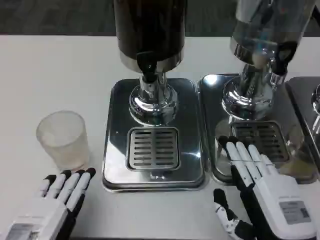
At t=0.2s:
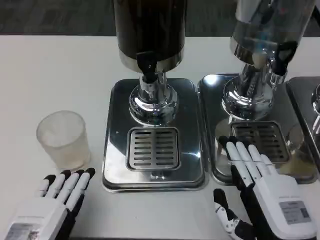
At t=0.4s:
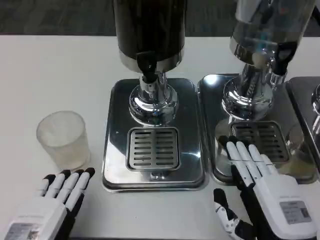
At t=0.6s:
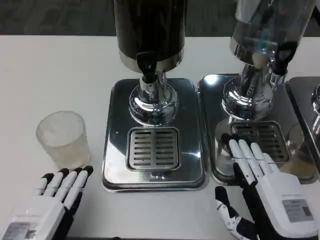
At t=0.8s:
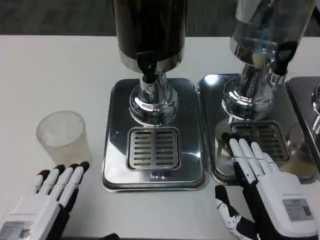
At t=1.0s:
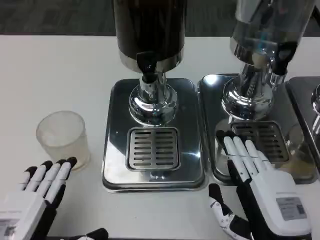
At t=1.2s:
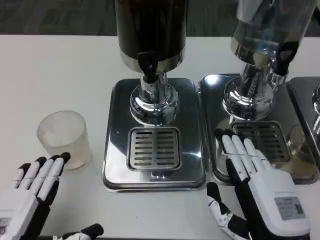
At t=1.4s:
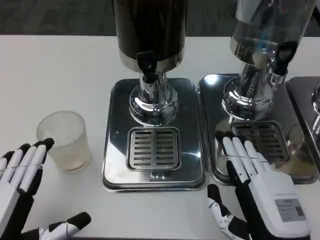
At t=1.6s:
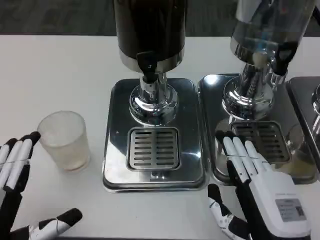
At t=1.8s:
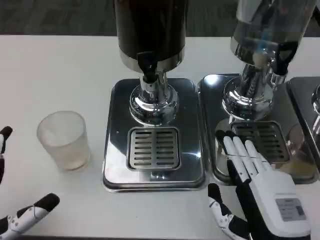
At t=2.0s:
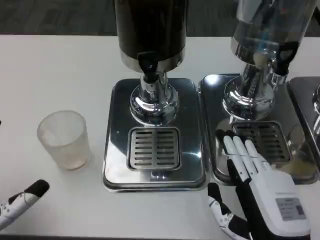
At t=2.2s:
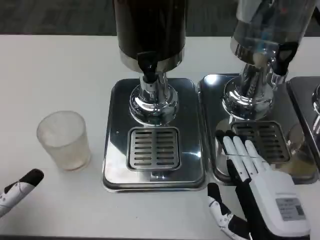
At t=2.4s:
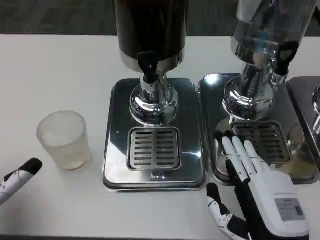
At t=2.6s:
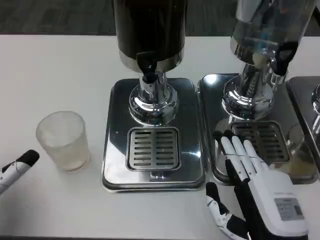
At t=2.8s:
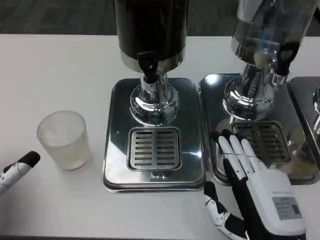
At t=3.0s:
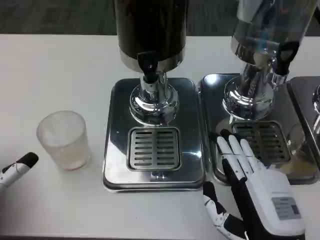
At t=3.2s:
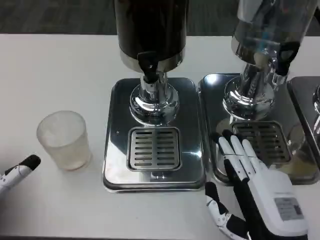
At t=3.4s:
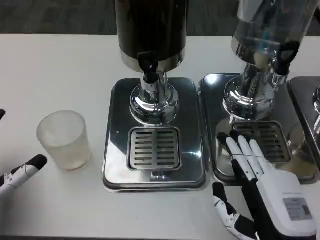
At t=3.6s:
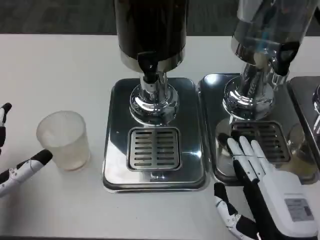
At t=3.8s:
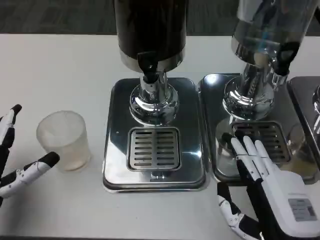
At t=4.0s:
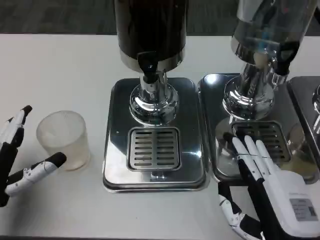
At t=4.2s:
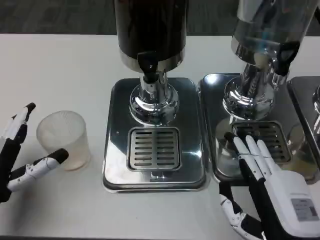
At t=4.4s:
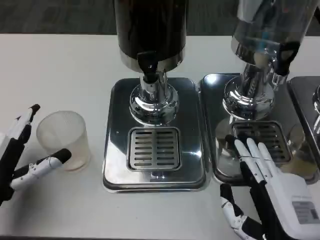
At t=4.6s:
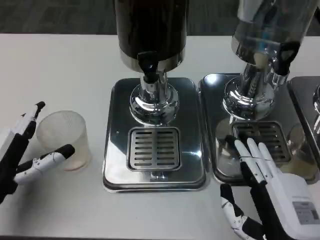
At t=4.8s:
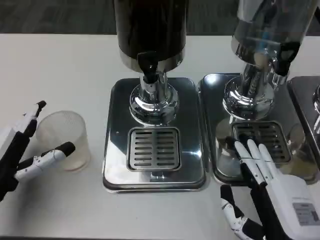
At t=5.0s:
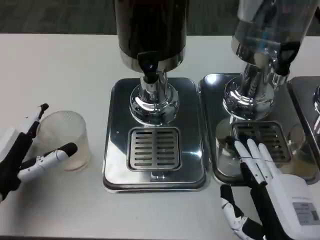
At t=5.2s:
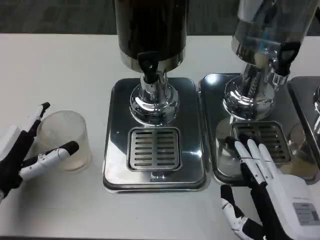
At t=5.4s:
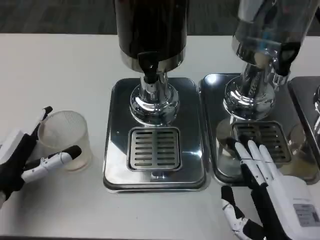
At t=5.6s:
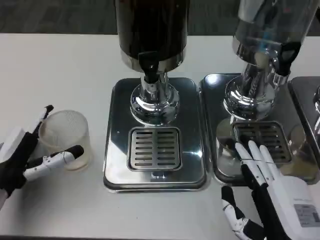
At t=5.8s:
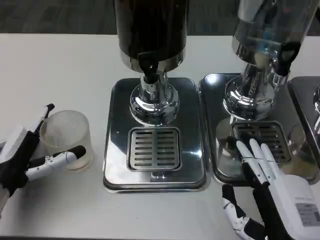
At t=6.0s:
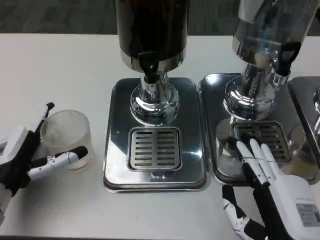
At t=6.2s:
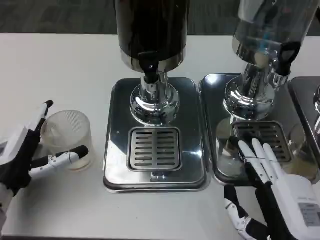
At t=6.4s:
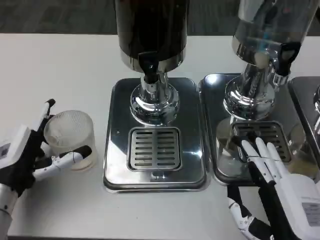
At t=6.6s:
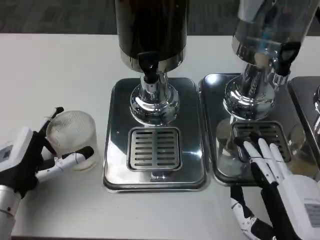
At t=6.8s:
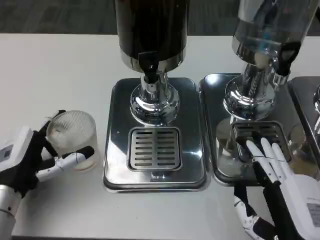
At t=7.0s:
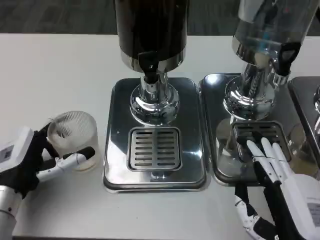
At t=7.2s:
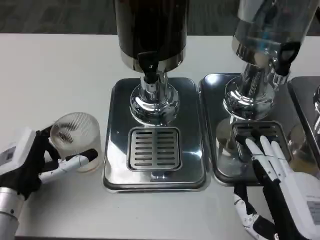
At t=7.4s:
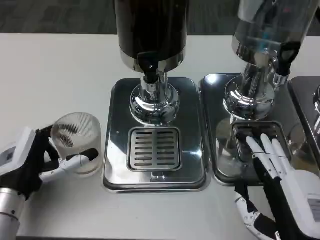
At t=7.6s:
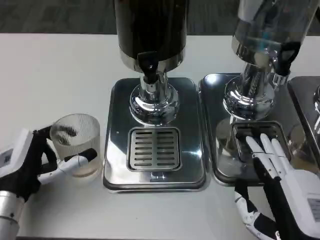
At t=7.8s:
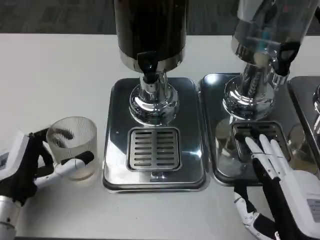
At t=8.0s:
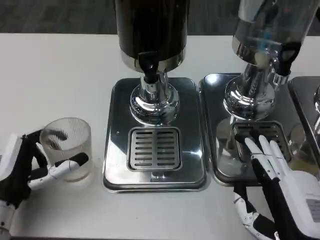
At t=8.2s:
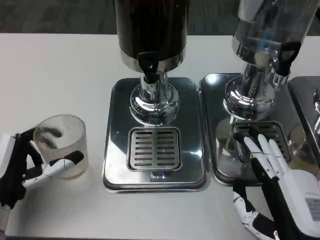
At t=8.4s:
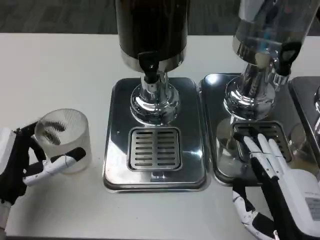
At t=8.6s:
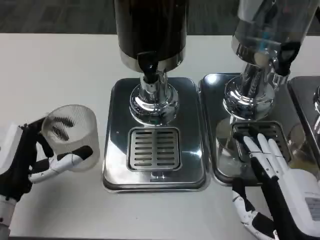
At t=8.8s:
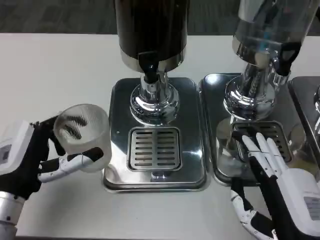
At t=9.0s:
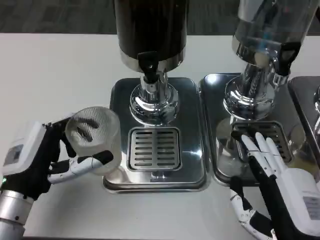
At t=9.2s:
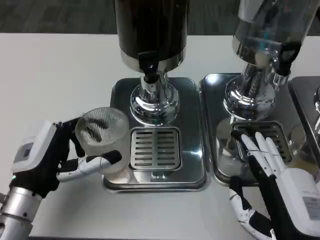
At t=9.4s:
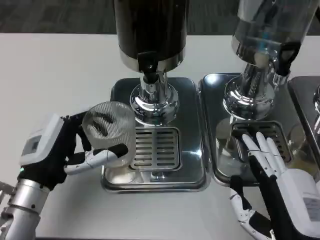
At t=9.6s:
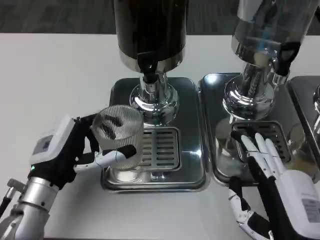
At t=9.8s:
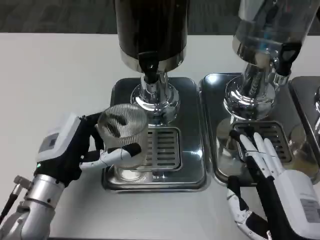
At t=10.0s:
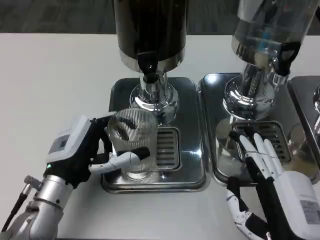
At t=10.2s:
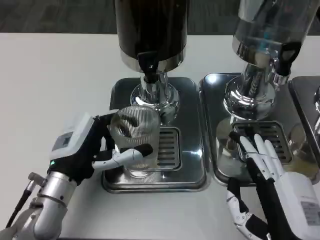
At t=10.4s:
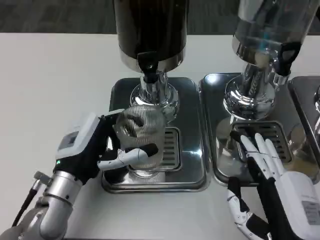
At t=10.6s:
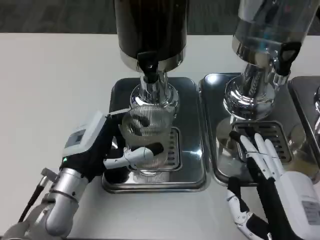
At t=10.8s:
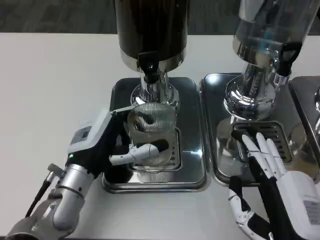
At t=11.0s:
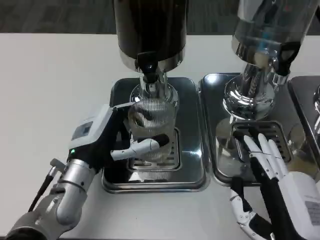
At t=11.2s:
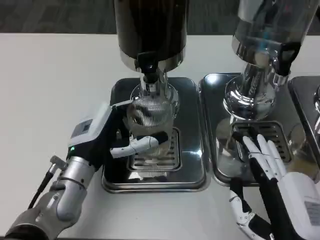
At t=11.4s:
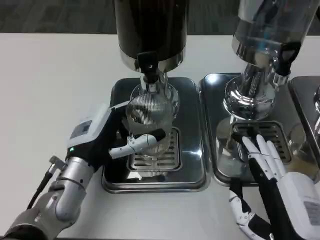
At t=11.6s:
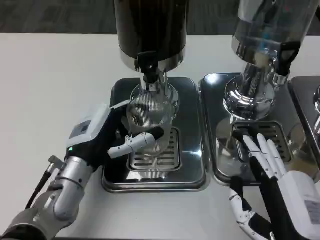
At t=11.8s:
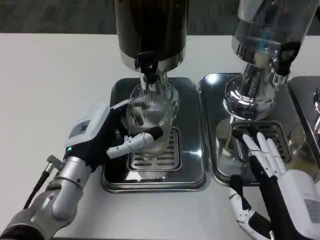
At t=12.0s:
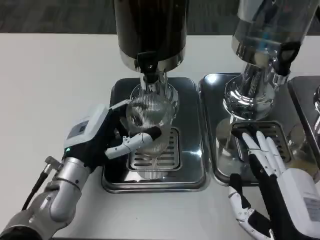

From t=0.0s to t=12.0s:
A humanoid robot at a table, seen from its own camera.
Task of the whole recording: Grasp the cup under the faucet to collect the drink, then remove the cup.
From t=1.6s to t=3.0s: The left hand travels forward and to the left by roughly 10 cm.
From t=3.0s to t=4.4s: There are only small adjustments of the hands.
From t=4.4s to t=9.0s: The hands stay close to where they were, moving slightly.
From t=9.0s to t=10.4s: The left hand moves to the right, some 5 cm.
From t=10.4s to t=12.0s: The hands move only a little.

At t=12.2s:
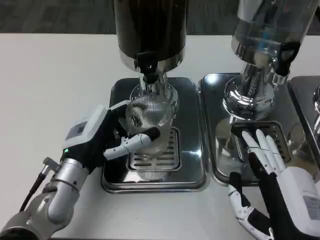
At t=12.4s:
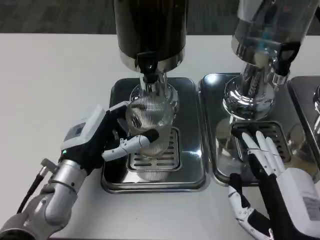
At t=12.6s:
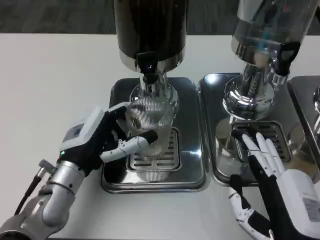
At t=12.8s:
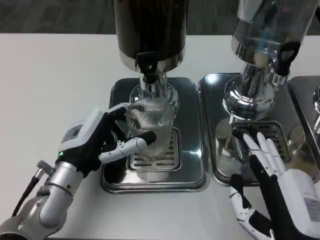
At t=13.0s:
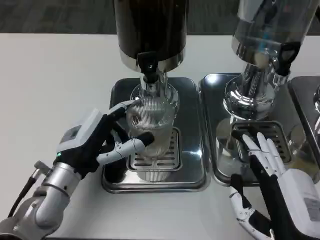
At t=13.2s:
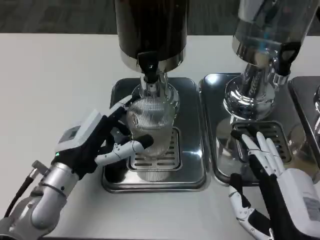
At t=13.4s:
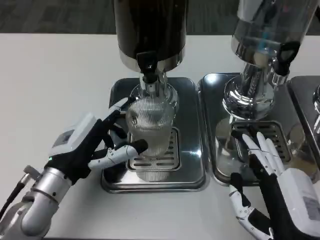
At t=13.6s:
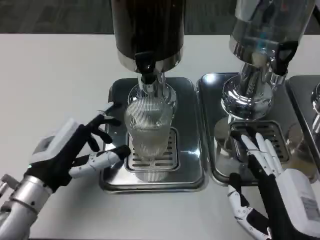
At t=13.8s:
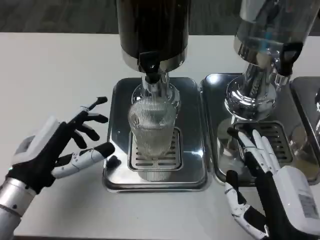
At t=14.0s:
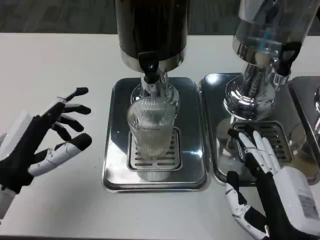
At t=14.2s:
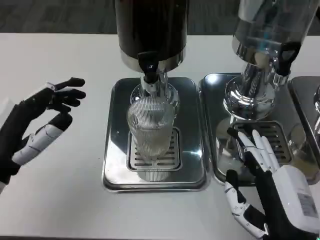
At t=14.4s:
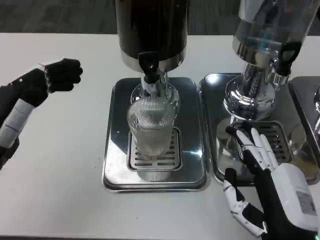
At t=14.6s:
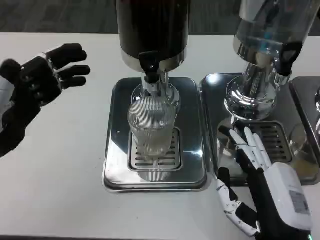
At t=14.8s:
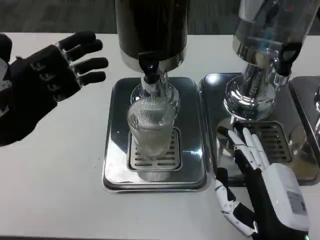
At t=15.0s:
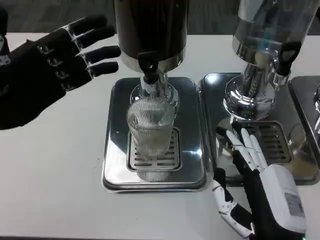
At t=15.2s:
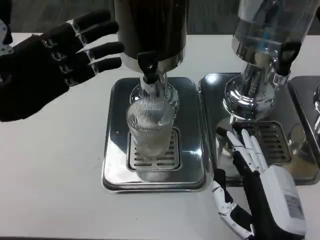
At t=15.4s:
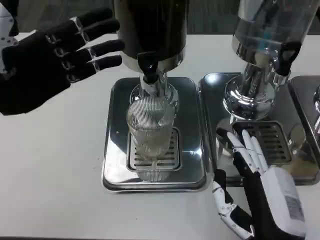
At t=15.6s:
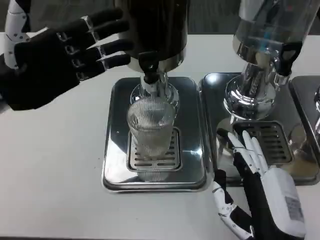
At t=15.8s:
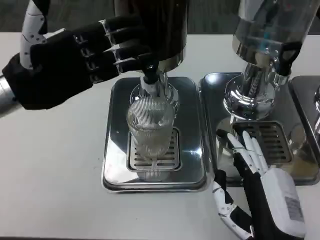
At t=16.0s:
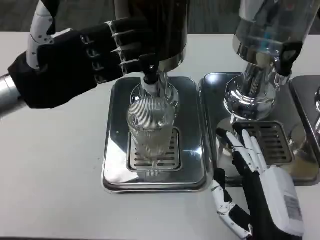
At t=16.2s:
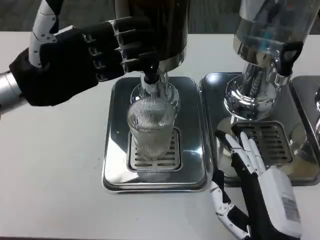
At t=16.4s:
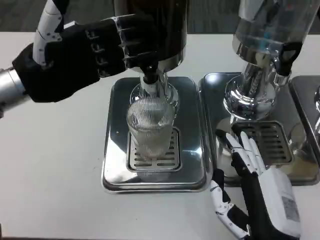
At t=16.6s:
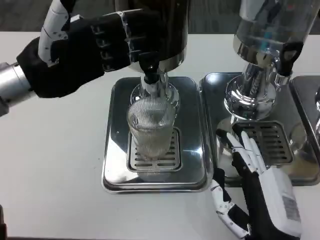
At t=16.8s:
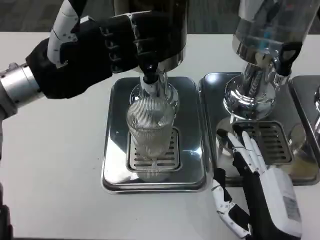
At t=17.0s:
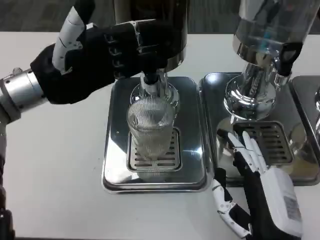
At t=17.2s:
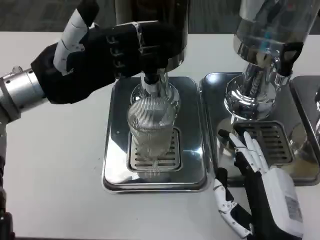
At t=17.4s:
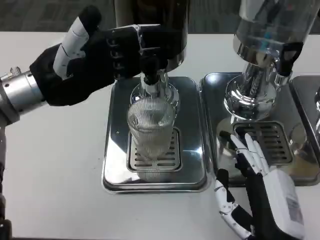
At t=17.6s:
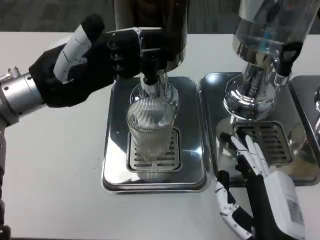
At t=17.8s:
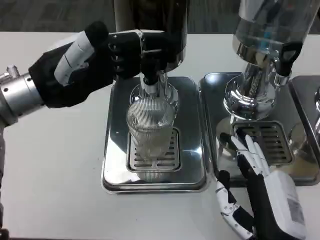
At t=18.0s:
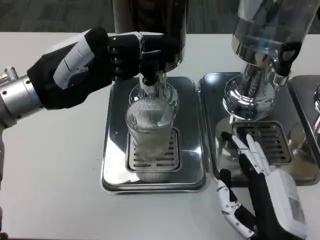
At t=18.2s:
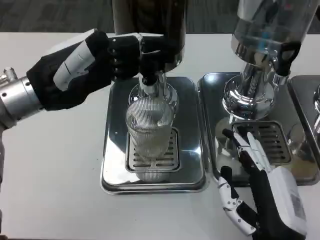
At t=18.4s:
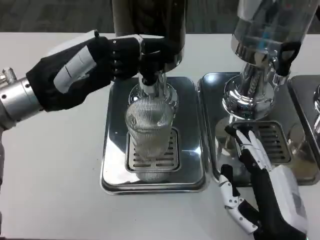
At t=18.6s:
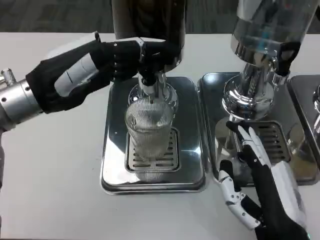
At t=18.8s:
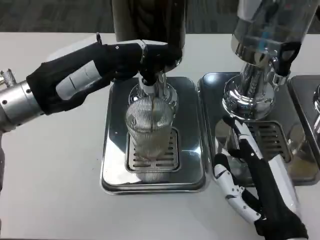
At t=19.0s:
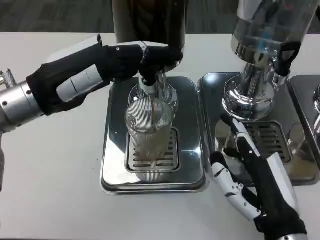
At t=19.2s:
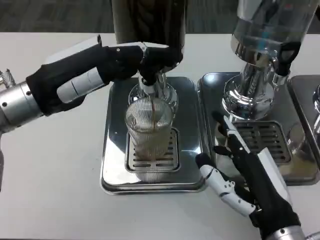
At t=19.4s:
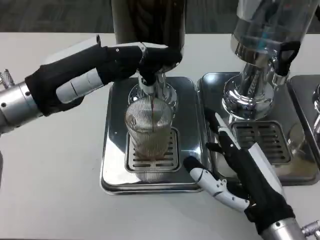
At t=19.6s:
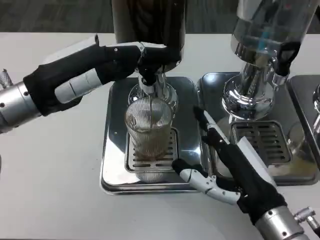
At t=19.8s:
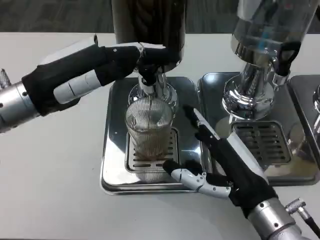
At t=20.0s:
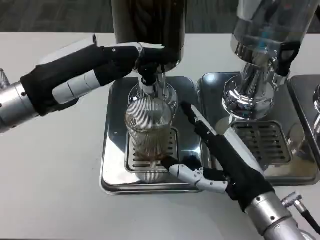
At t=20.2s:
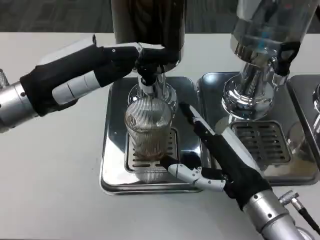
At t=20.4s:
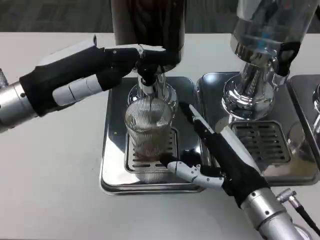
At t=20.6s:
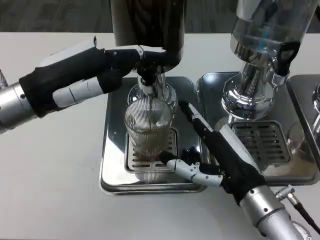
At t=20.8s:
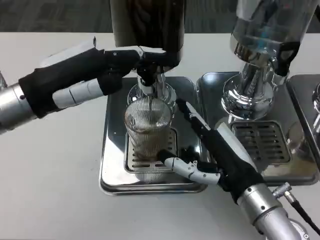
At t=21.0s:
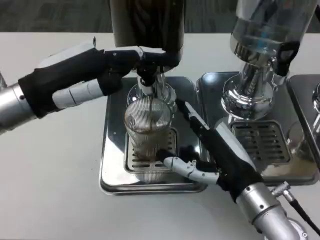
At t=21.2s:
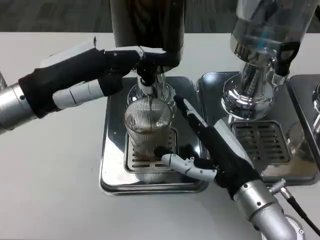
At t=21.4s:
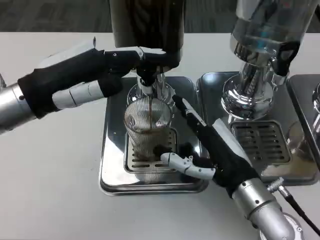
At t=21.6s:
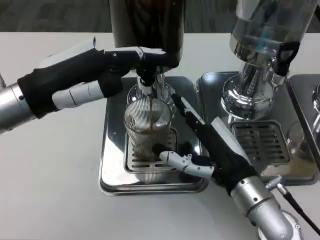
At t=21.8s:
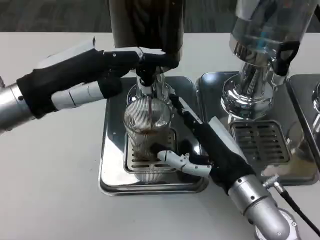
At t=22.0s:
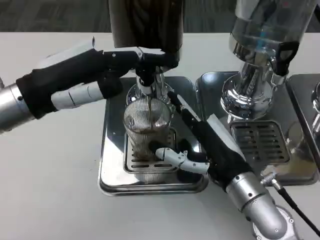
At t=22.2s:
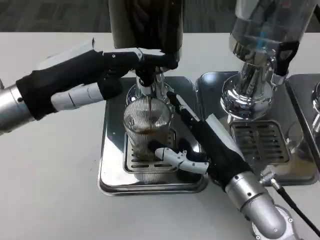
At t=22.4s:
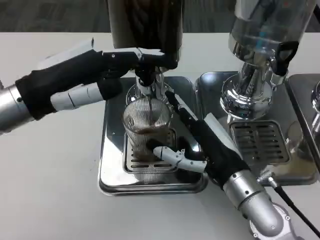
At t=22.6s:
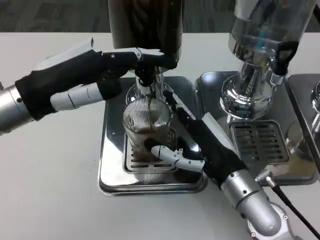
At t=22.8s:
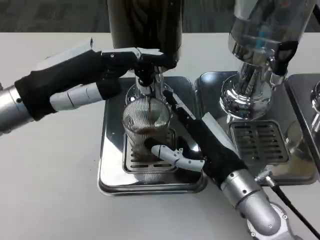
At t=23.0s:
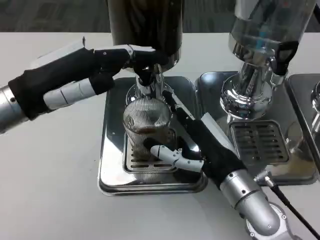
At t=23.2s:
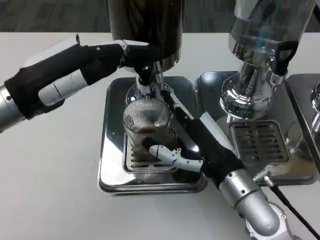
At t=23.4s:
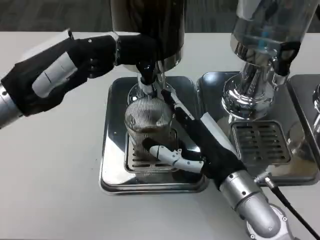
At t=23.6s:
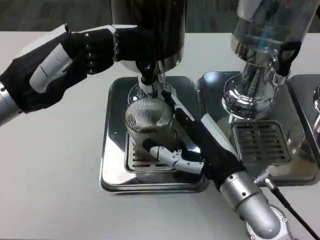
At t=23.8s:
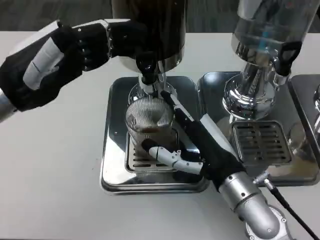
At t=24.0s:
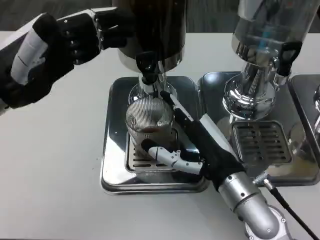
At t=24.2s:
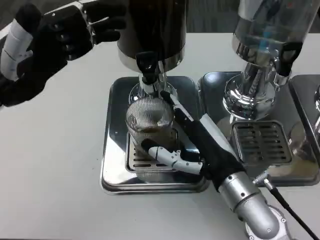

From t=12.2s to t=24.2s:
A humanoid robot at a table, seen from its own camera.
Task of the whole recording: Grasp the cup under the faucet to collect the drink, then remove the cup.
From t=12.2s to t=13.8s: The left hand shifts some 5 cm to the left.
From t=13.8s to t=15.2s: The left hand moves upward and forward, about 15 cm.
From t=15.2s to t=16.6s: The left hand ends up about 5 cm from where it was.
From t=18.2s to t=19.8s: The right hand travels forward by roughly 5 cm.
From t=19.8s to t=22.6s: The hands stay close to where they were, moving slightly.
